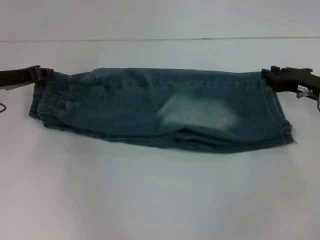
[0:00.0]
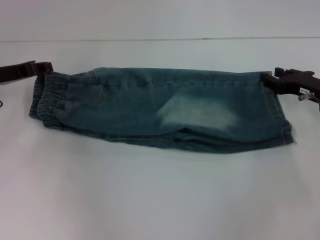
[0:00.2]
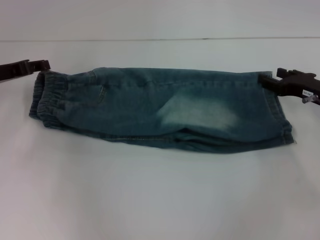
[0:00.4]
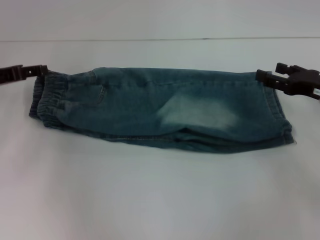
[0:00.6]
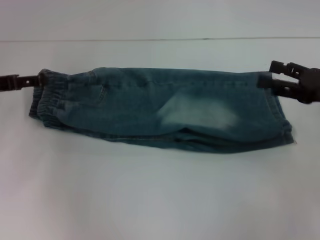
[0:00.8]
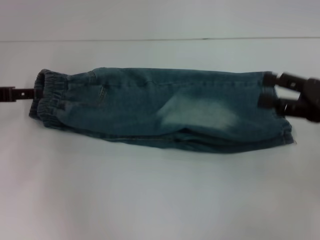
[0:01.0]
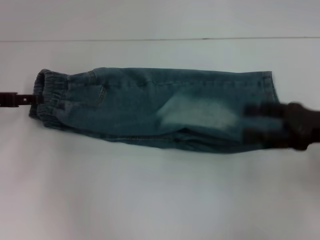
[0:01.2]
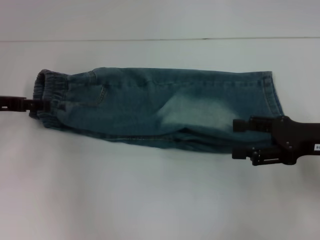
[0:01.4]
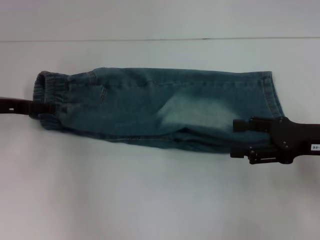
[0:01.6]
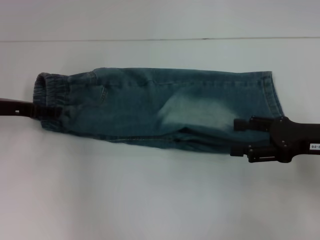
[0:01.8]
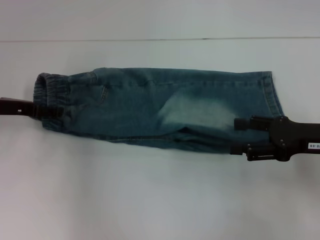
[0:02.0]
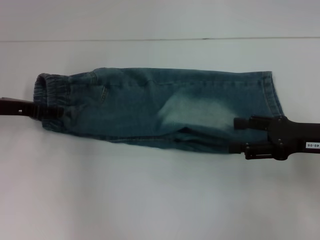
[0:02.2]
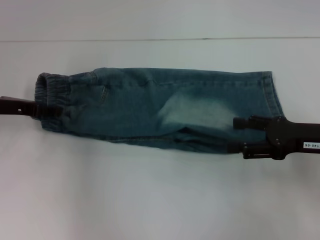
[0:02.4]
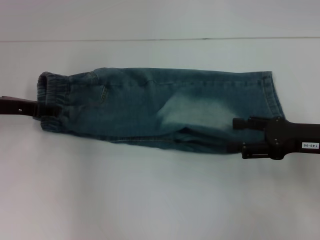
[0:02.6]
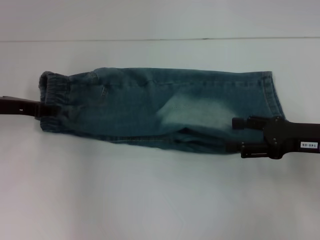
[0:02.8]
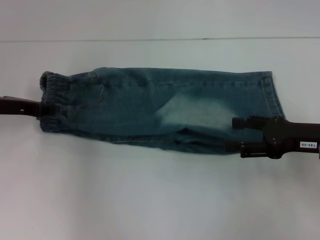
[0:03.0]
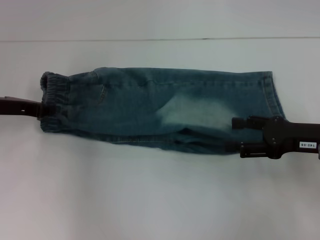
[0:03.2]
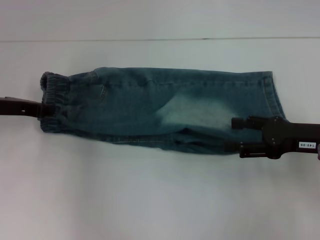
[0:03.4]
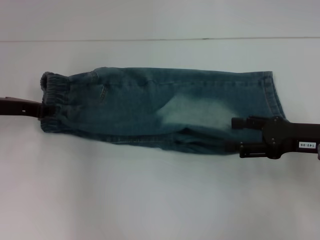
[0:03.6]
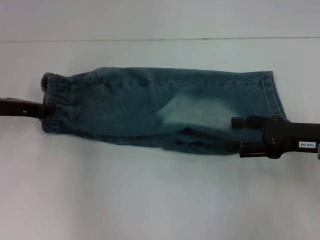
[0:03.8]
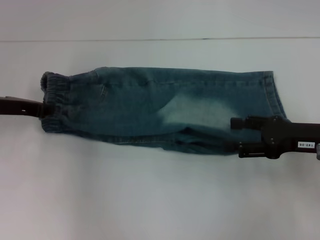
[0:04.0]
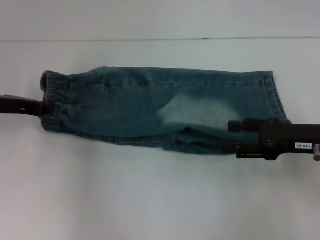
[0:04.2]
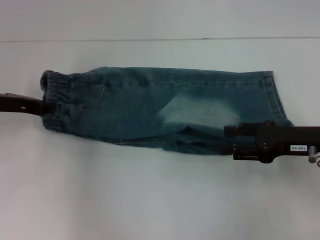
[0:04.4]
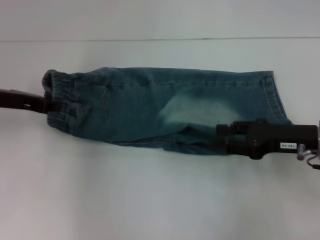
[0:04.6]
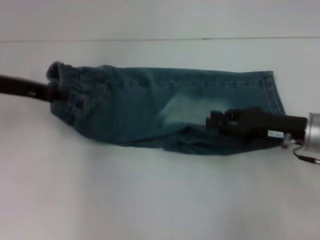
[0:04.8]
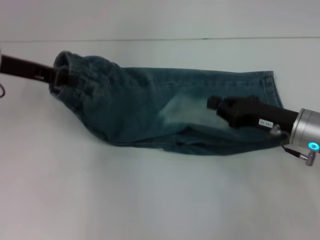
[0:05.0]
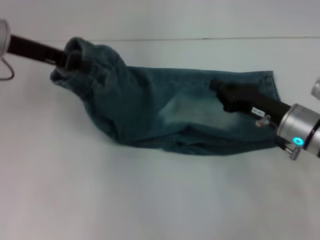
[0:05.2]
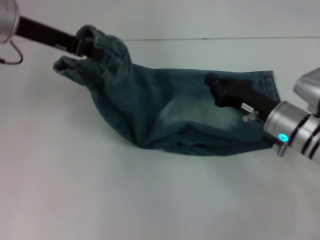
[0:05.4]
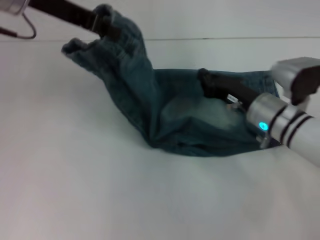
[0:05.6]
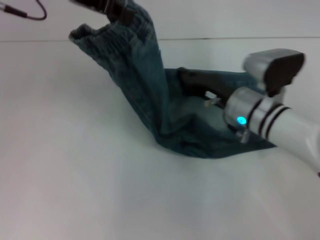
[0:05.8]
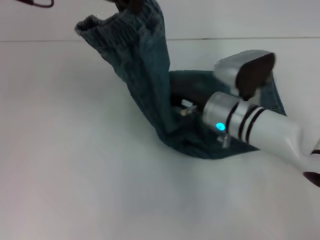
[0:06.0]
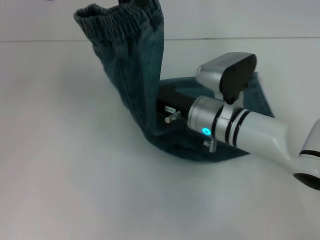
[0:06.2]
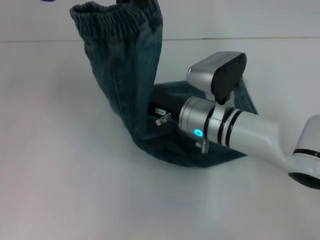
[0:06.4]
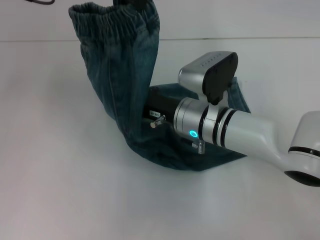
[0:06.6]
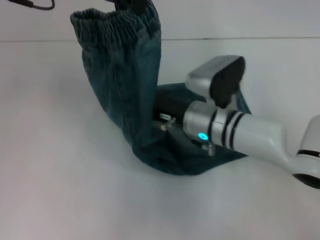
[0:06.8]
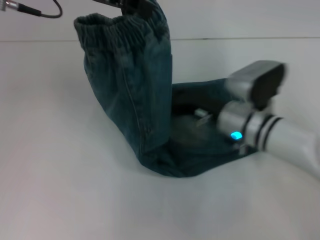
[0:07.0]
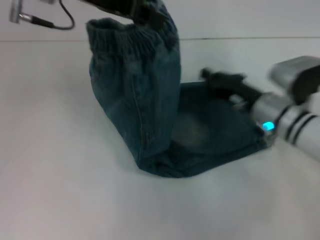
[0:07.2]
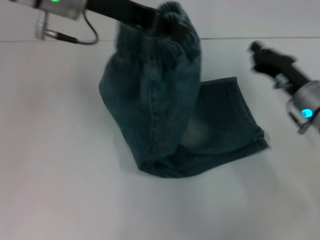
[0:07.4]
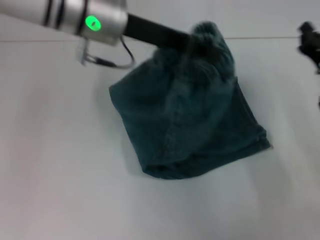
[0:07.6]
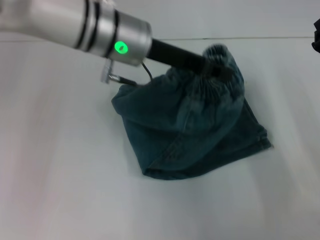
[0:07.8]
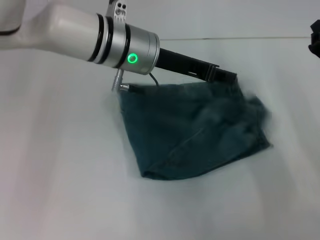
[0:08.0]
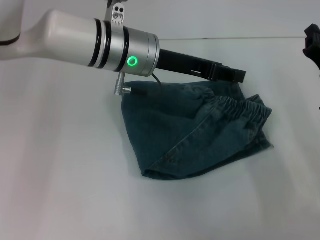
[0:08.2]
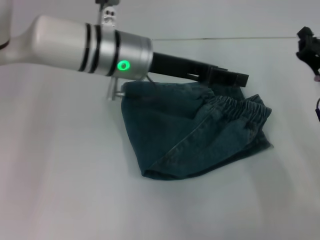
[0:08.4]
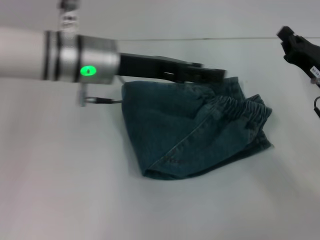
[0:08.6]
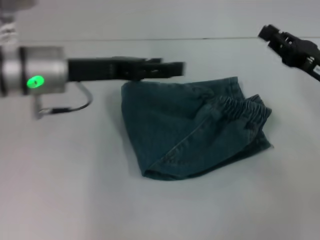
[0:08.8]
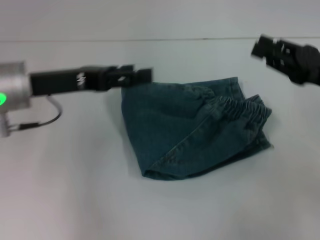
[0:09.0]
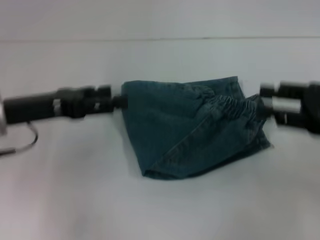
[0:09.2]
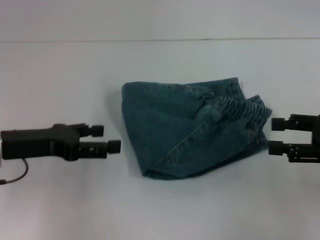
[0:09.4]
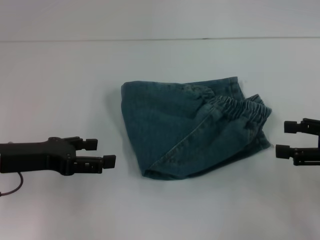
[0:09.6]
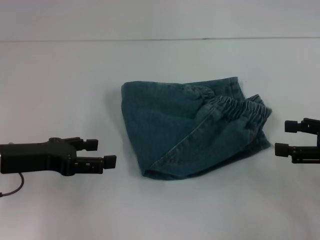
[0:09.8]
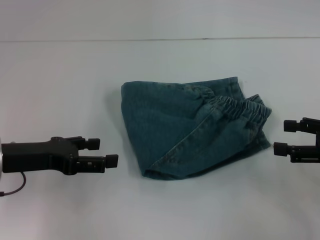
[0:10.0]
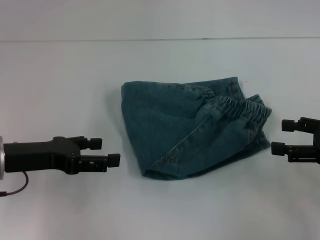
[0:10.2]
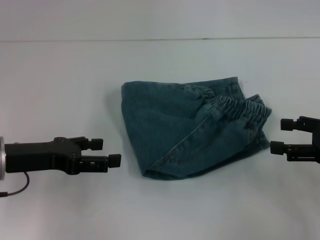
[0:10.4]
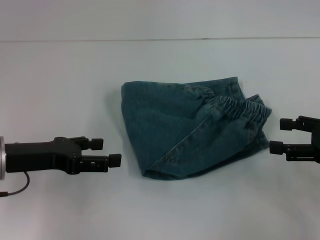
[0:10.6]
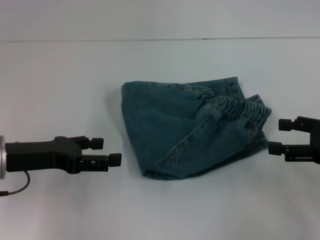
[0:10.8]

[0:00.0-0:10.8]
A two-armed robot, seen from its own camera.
Step, 0:00.2 to 0:03.2: Hold the waistband with your left hand.
Step, 0:03.6 to 0:06.8: Press the middle of the pants with your right hand.
Step, 0:07.0 to 0:08.4: Fold to the right with your left hand.
0:00.0 to 0:01.6: The left gripper opens its fingers. Meanwhile the right gripper goes roughly 10 cm backward, and opens its fingers.
0:01.6 to 0:03.0: The left gripper closes up.
0:03.0 to 0:04.6: The grippers make only small movements.
0:04.6 to 0:06.2: The left gripper shifts roughly 25 cm upward and to the right. The right gripper moves to the left, approximately 15 cm, and closes up.
0:06.2 to 0:07.8: The left gripper shifts approximately 15 cm downward and to the right. Meanwhile the right gripper moves to the right, about 20 cm.
0:07.8 to 0:09.2: The right gripper shifts about 10 cm upward and backward, and opens up. Meanwhile the left gripper goes about 20 cm to the left and backward, and opens up.
0:09.2 to 0:10.8: The right gripper opens up.

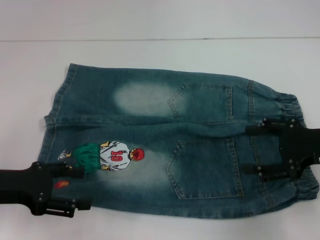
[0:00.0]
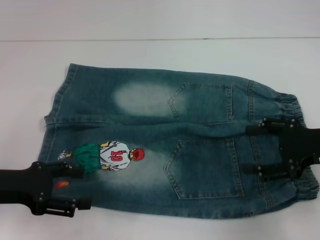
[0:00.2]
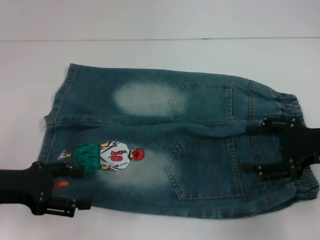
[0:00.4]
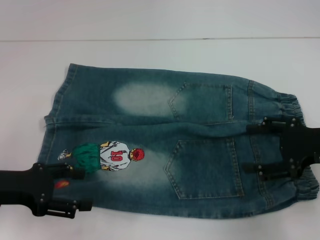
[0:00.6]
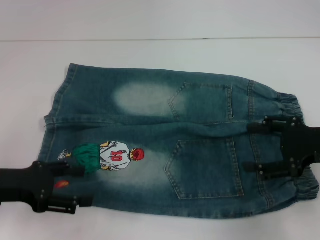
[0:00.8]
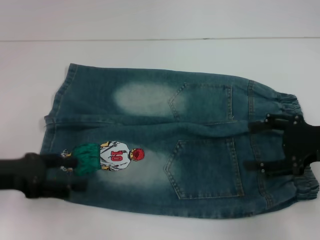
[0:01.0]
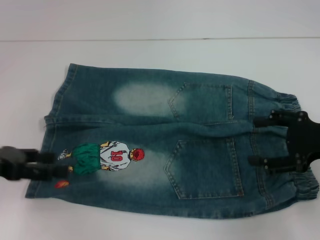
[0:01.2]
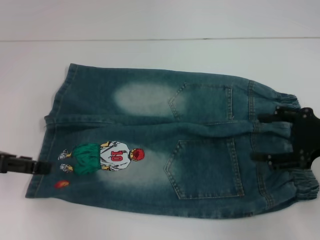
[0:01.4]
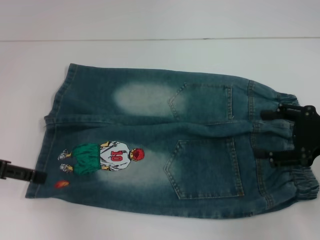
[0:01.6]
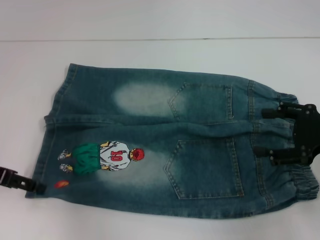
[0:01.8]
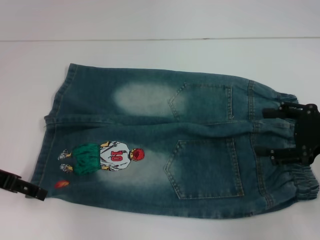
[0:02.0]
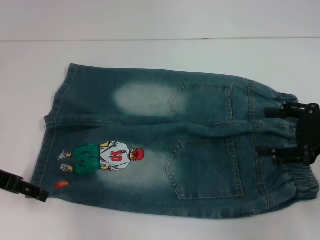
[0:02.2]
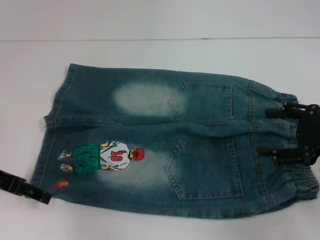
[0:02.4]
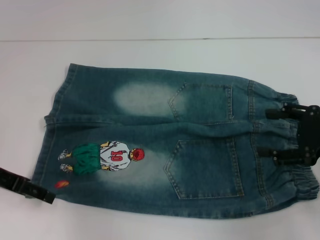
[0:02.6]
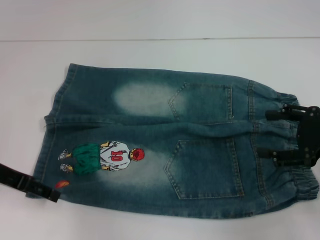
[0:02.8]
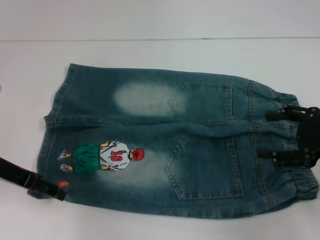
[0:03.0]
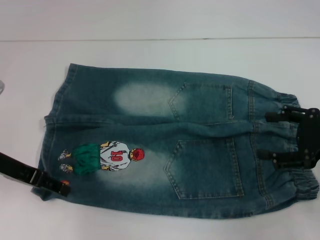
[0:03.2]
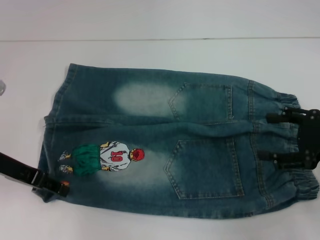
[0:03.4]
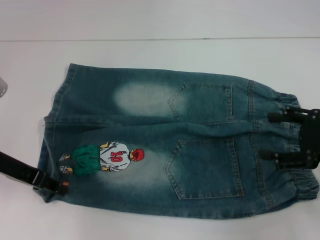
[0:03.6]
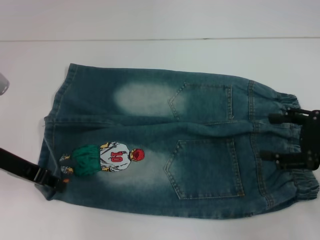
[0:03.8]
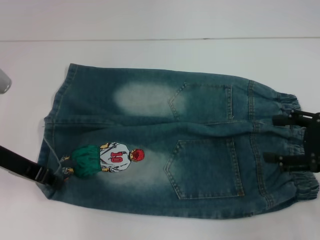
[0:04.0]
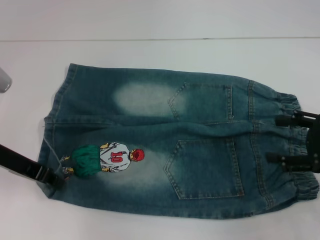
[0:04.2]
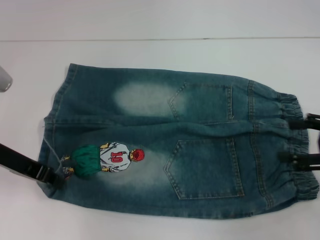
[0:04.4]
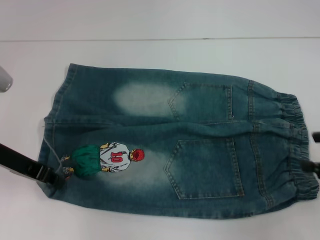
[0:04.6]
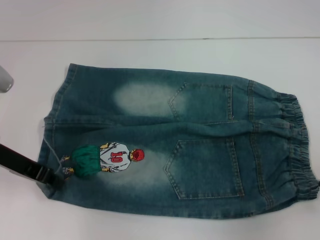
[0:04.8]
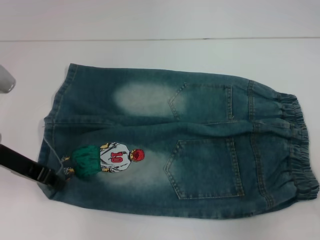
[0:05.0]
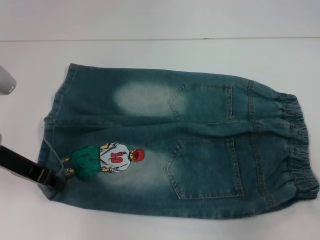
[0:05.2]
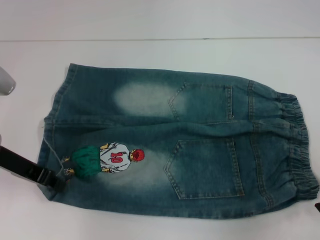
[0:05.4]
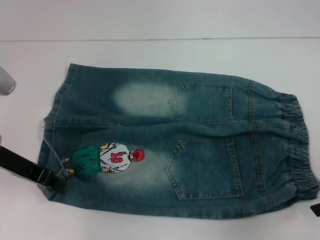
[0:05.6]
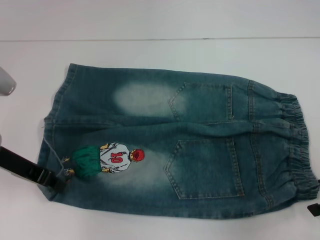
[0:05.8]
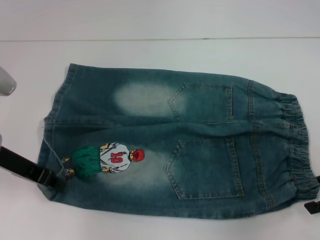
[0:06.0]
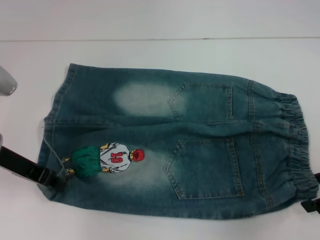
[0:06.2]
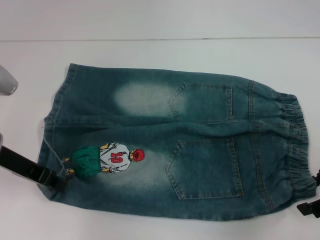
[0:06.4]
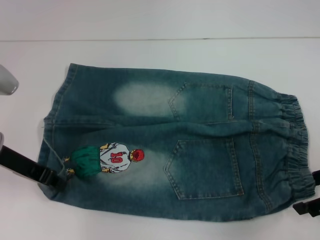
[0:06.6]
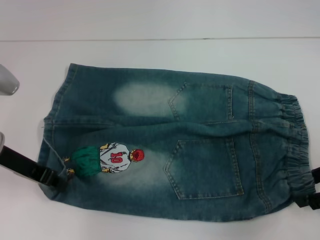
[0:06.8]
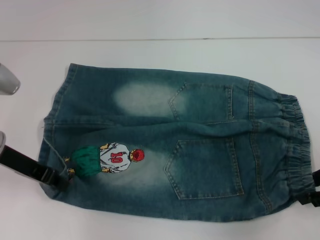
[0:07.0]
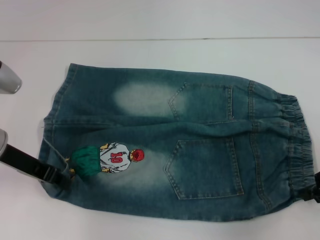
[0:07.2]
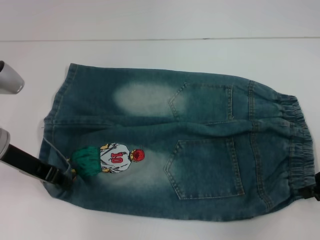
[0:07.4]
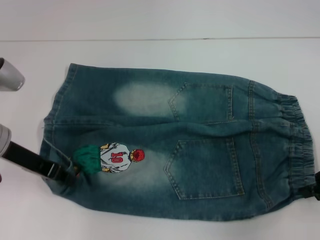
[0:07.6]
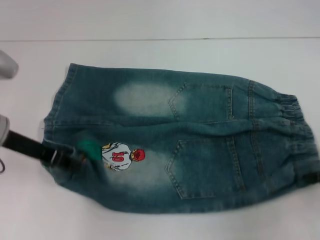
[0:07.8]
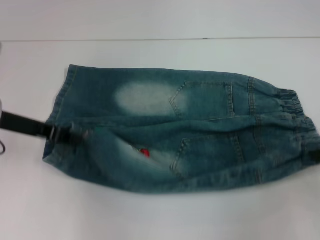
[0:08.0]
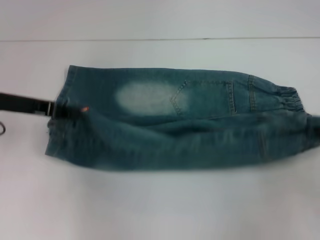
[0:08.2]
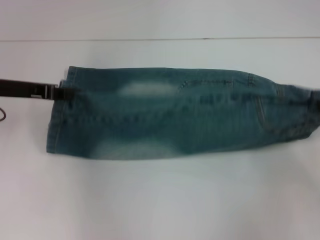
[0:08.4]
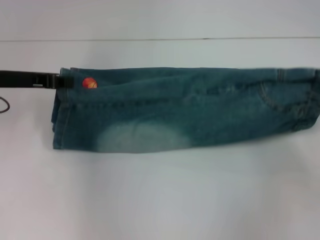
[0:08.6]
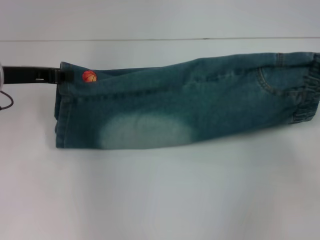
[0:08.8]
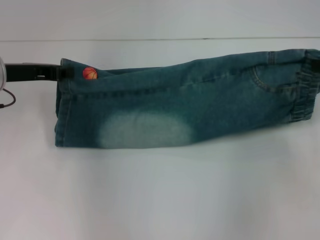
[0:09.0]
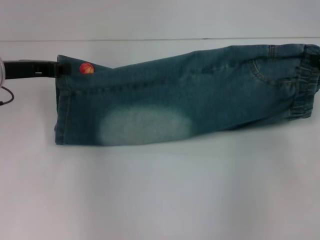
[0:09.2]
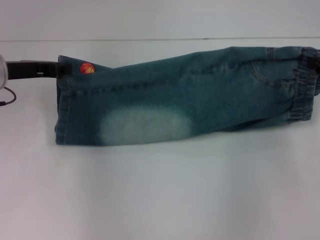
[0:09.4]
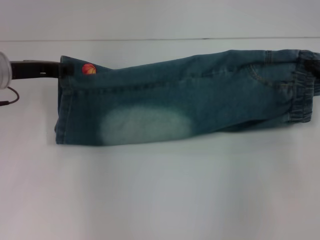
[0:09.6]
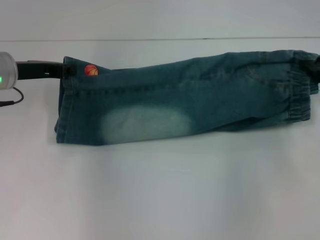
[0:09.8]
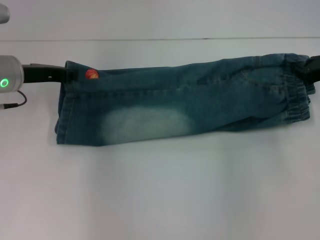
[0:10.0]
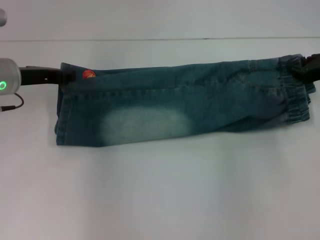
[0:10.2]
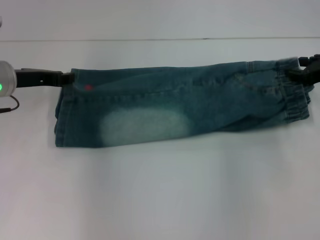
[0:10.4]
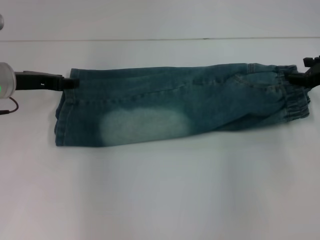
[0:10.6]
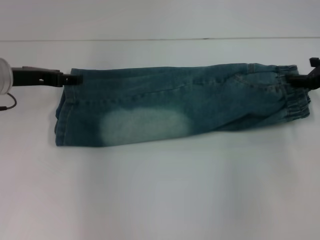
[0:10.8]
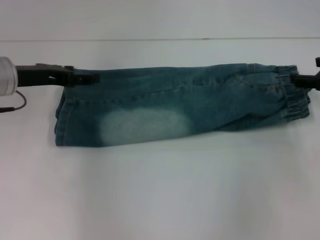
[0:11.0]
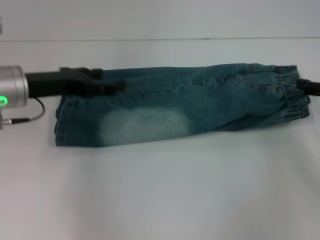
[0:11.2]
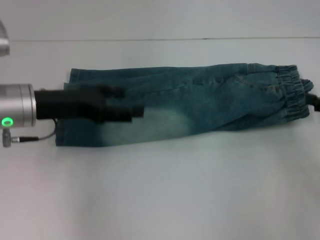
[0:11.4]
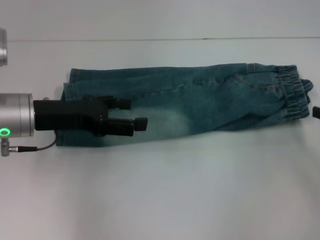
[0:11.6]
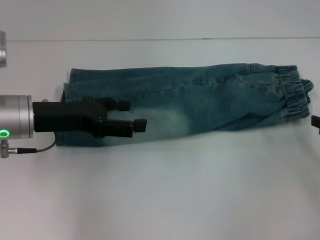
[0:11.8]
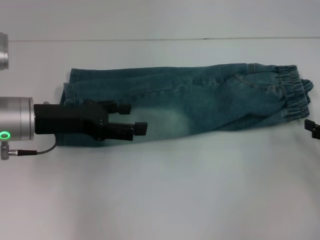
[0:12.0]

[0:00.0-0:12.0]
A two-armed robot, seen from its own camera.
Step, 0:00.0 to 0:04.0: Grab the lower left pant leg with your left hand.
Step, 0:04.2 to 0:07.4: Hold the lower right waistband with your right hand.
Step, 0:07.6 to 0:10.4: Fold upward with your right hand.
0:00.0 to 0:01.6: The left gripper goes approximately 5 cm upward.
0:01.6 to 0:03.0: The left gripper ends up approximately 5 cm from where it was.
0:03.0 to 0:04.4: The left gripper closes its fingers.
0:06.0 to 0:07.6: The right gripper closes its fingers.
0:07.6 to 0:09.0: The right gripper moves forward and upward, about 10 cm, while the left gripper moves forward, some 5 cm.
0:09.0 to 0:10.4: The right gripper ends up roughly 5 cm from where it was, and opens up.
0:10.4 to 0:12.0: The right gripper heads backward, downward and to the right, covering roughly 15 cm, and opens up. Meanwhile the left gripper shifts some 5 cm backward, and opens.
